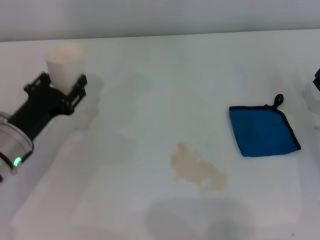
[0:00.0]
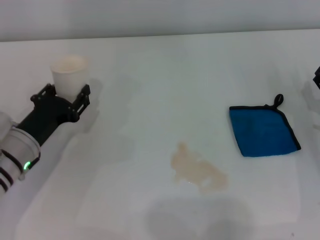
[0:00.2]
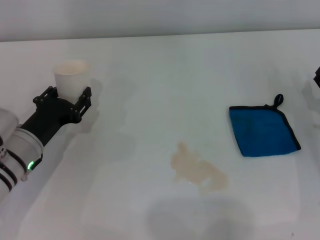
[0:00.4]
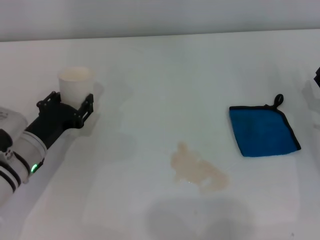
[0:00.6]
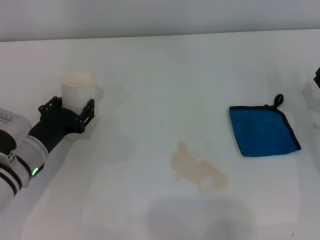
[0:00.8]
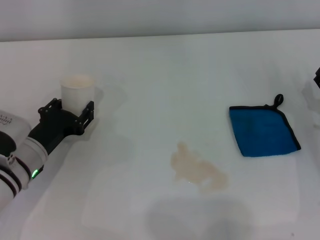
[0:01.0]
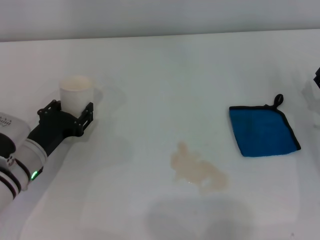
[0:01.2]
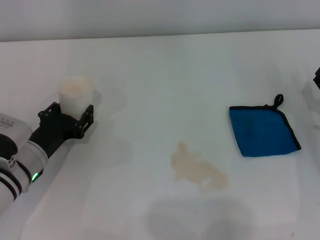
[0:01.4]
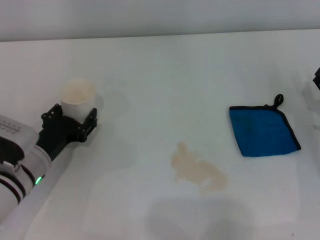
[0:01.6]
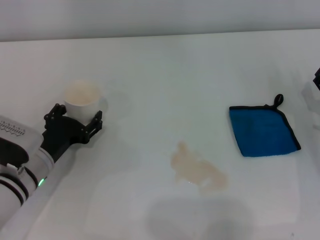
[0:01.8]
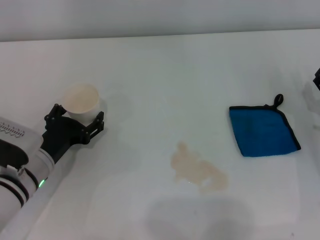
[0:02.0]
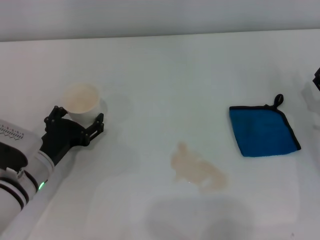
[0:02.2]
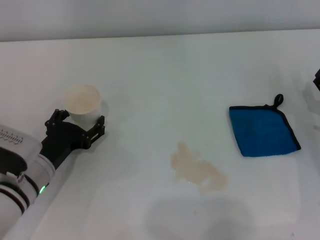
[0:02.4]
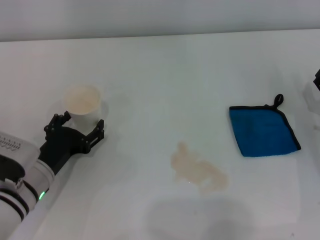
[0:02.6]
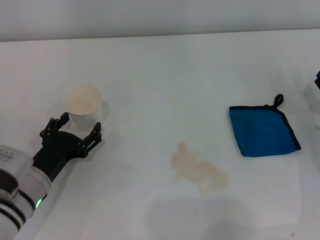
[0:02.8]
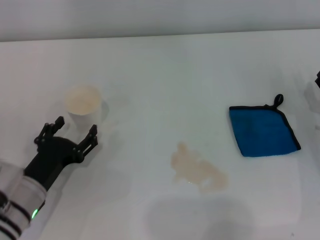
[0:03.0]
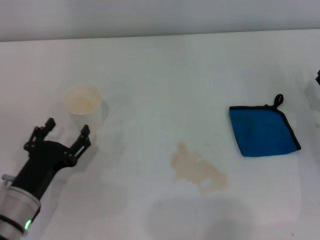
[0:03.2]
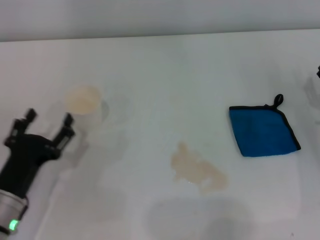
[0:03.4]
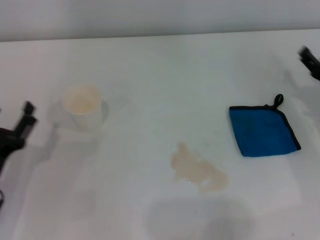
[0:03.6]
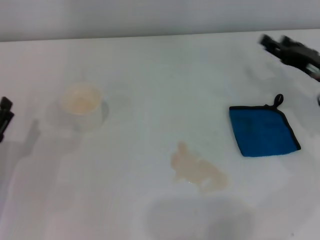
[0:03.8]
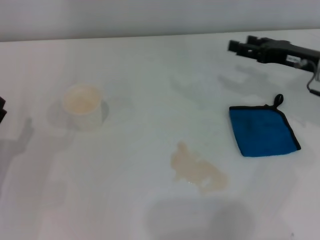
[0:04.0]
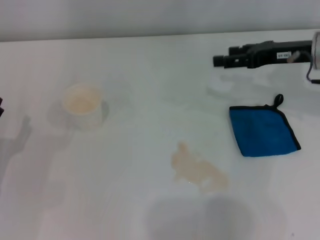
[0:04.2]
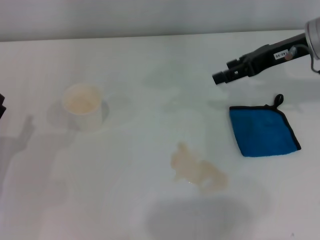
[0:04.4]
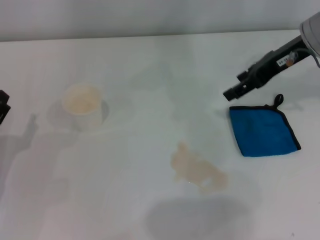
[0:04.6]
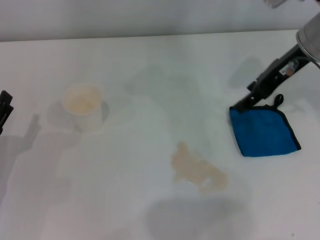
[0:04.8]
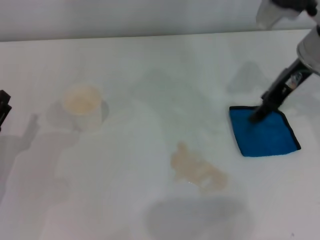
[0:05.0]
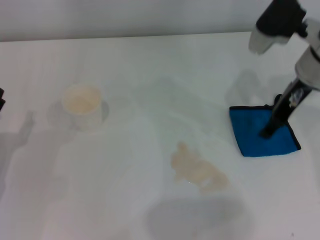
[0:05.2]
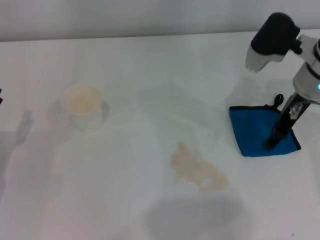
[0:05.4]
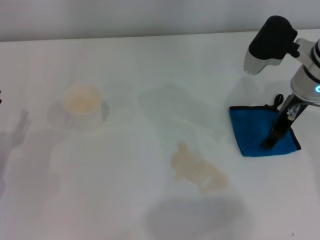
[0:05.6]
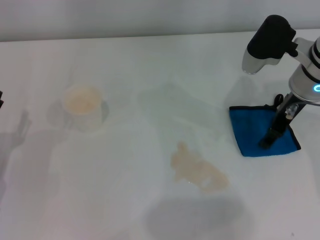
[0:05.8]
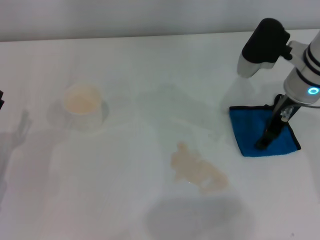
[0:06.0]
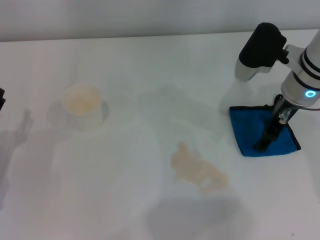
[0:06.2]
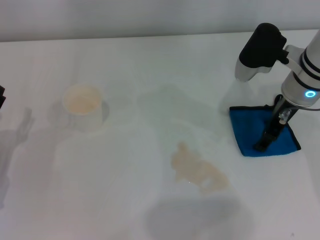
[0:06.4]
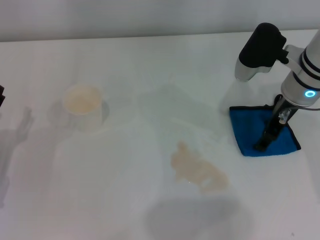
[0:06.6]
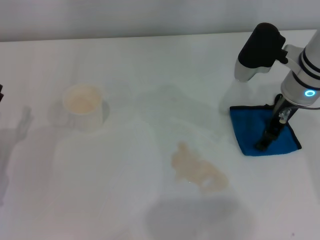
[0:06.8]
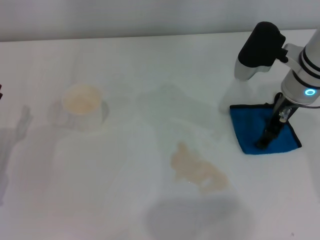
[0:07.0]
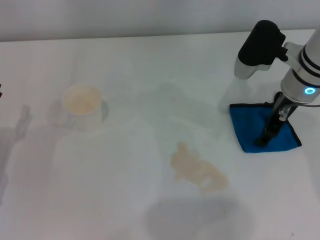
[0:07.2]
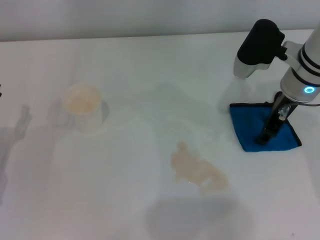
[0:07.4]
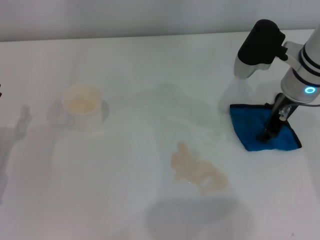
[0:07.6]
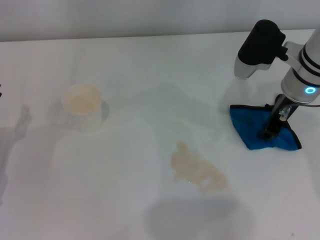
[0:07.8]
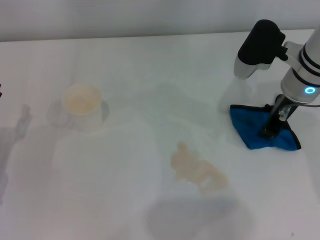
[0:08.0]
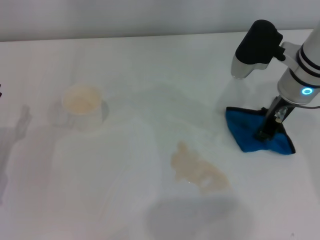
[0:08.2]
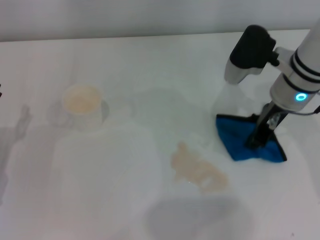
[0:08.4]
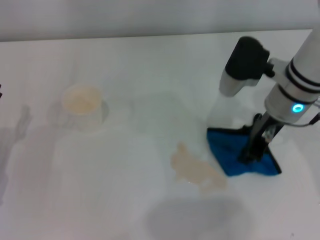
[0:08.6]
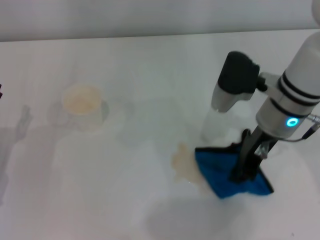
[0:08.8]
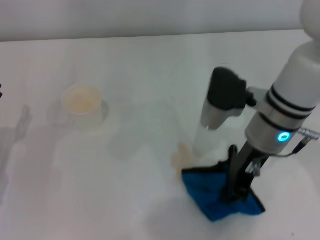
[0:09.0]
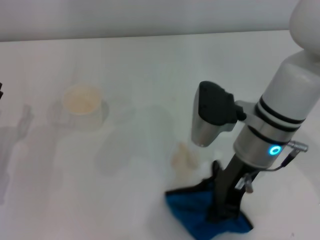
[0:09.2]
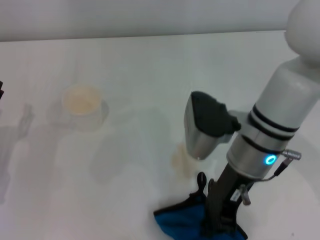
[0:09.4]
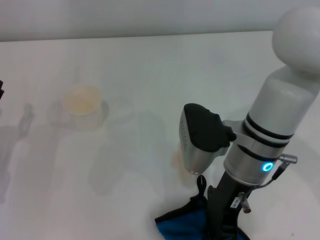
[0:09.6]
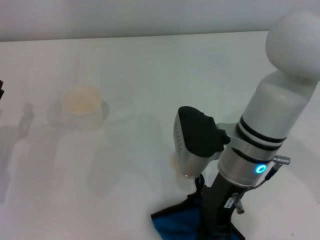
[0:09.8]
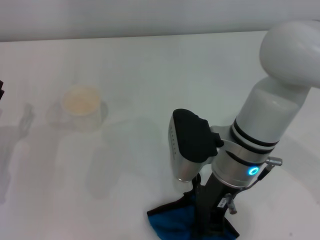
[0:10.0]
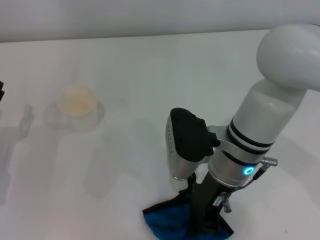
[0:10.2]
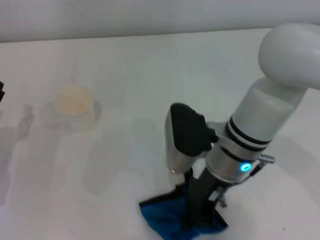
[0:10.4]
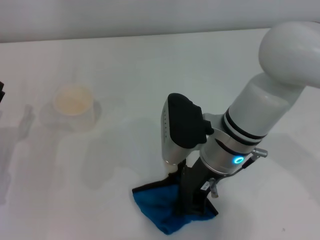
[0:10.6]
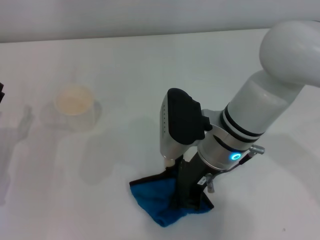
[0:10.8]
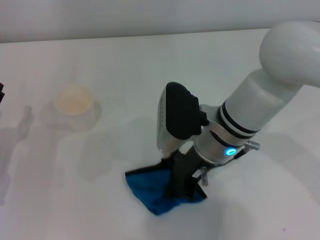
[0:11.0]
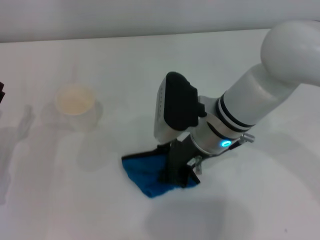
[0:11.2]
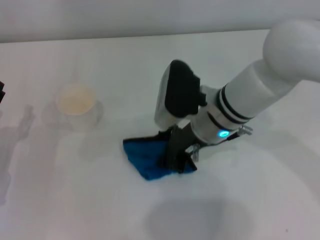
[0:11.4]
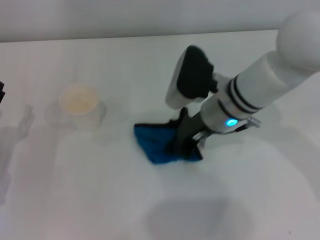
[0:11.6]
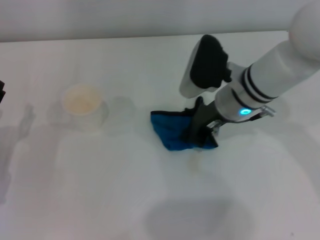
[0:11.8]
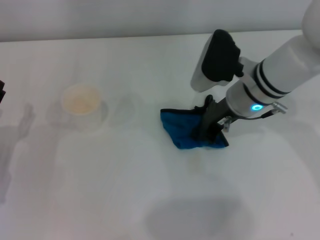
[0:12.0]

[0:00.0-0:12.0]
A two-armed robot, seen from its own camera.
Step, 0.0 to 2.0 s: Stand the paper cup upright with the left gripper.
Step, 2.2 to 8.0 s: Grasp the rag with the right gripper.
0.0 to 1.6 s: The grippers make only small movements.
1.6 to 3.0 s: The left gripper heads backward, covering approximately 5 cm, and opens up.
3.0 to 4.4 s: The right gripper goes some 20 cm upward and forward, while the left gripper heads to the left, covering roughly 10 cm.
4.4 to 6.0 s: The right gripper ends up about 5 cm from where it was.
6.0 to 7.6 s: Both grippers stay put.
7.6 to 9.0 s: The right gripper travels to the left and backward by some 10 cm, and closes.
9.0 to 10.4 s: The right gripper moves to the left, approximately 5 cm.
10.4 to 12.0 s: The right gripper is displaced forward and to the right by approximately 10 cm.

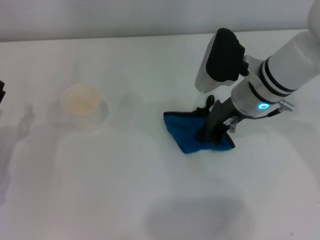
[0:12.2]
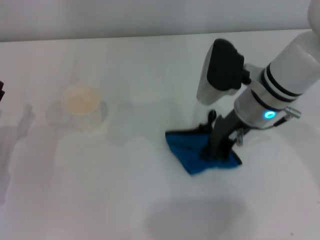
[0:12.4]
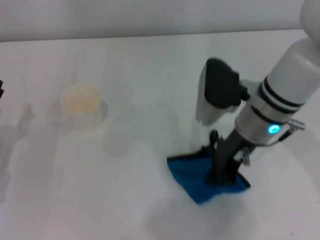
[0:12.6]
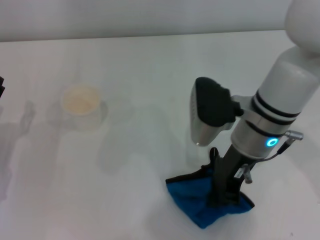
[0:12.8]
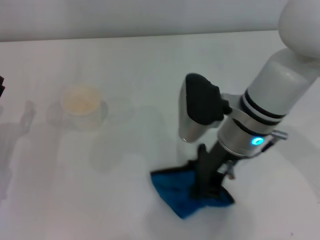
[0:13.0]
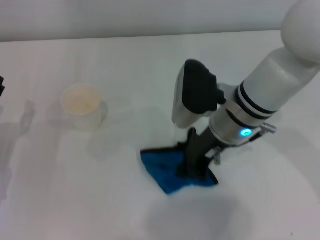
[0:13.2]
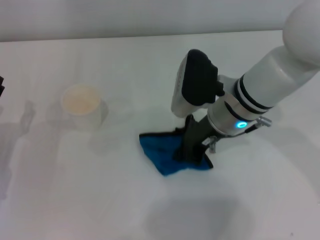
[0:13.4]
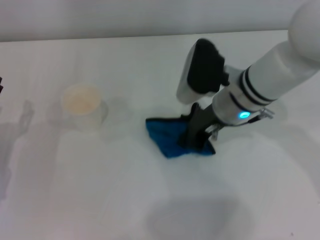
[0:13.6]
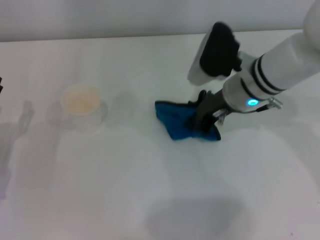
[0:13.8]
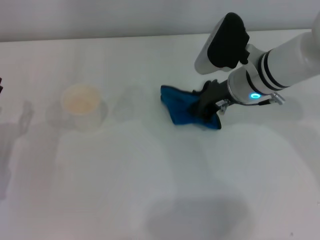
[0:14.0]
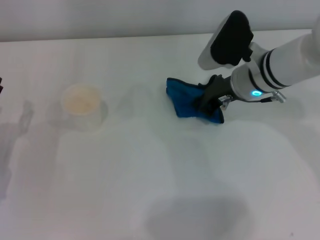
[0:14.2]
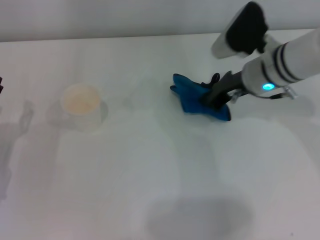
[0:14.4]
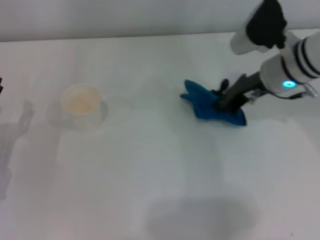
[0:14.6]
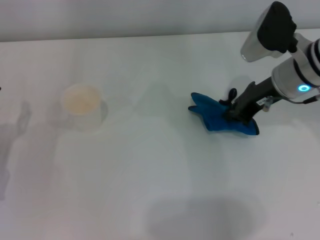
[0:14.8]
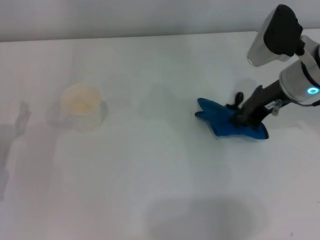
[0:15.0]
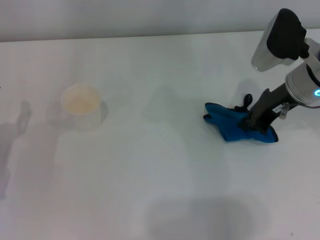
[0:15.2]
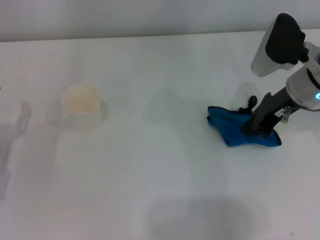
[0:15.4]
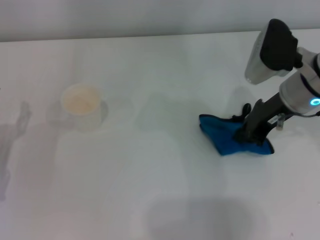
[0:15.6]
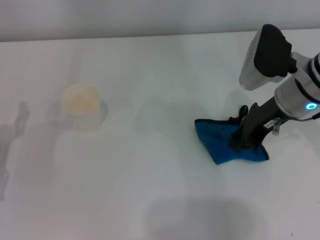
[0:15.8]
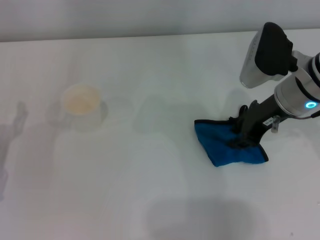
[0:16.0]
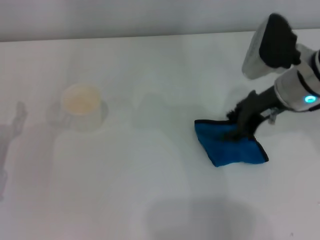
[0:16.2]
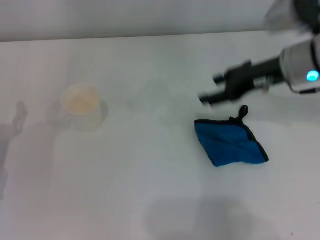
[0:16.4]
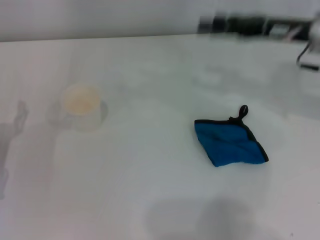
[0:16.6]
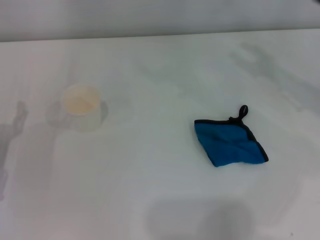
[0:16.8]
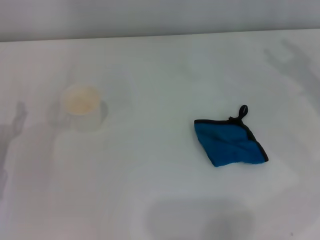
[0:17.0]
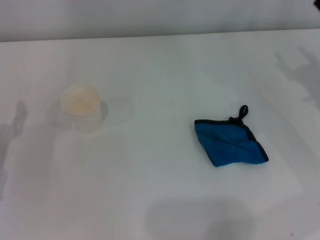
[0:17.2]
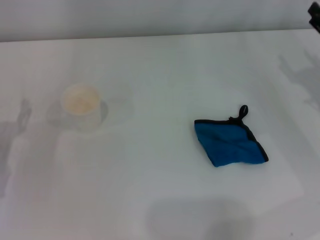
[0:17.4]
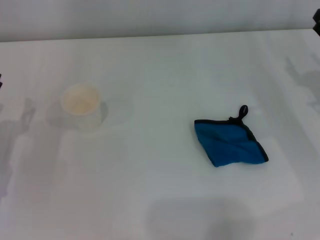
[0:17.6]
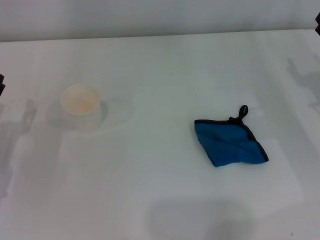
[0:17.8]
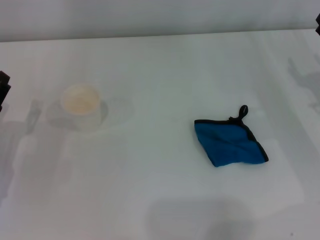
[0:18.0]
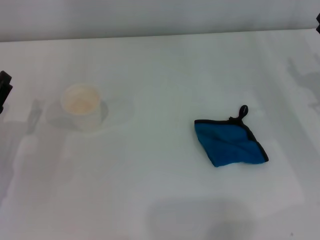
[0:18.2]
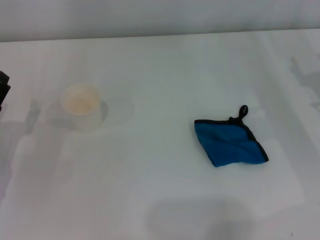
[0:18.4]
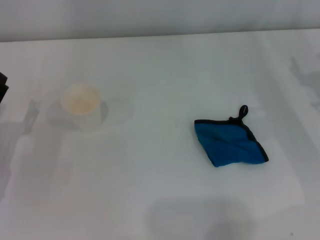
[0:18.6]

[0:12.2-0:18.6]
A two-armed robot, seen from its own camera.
Step, 12.2 to 15.0 s: Wipe the stains off the table with the right gripper.
Step, 15.2 to 15.8 s: Place the rag on the table with the right gripper.
13.8 to 15.4 s: The right gripper travels to the right by about 10 cm.
15.4 to 17.0 s: The right gripper shifts some 10 cm to the right, and opens up.

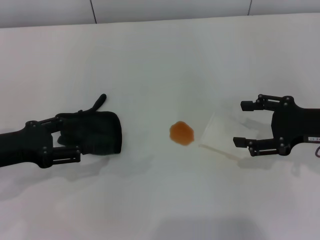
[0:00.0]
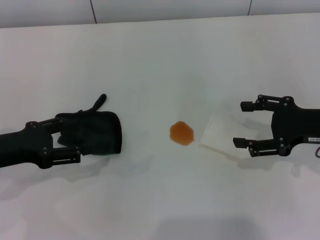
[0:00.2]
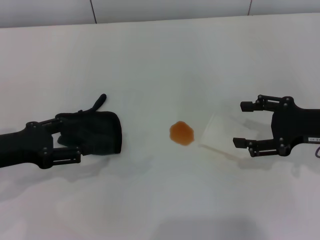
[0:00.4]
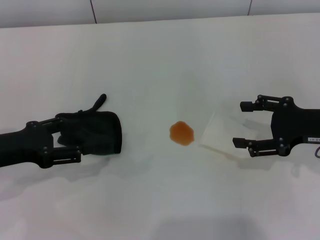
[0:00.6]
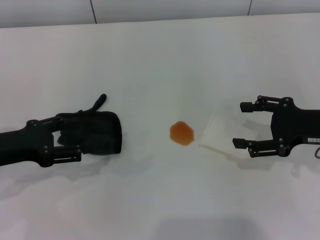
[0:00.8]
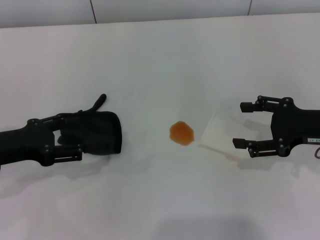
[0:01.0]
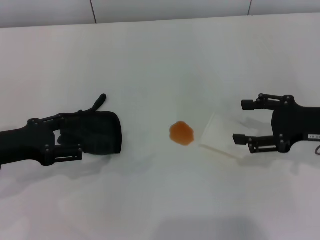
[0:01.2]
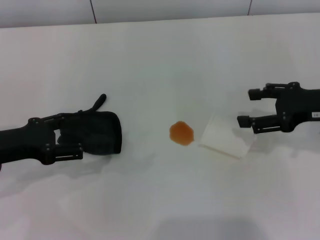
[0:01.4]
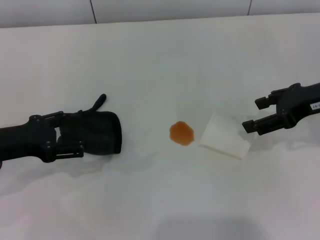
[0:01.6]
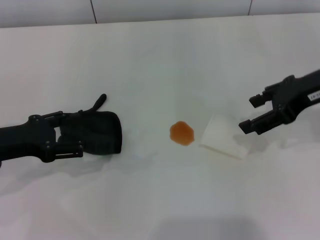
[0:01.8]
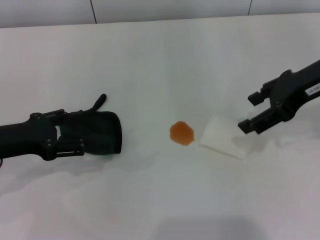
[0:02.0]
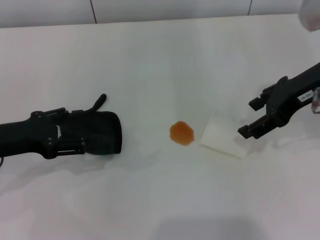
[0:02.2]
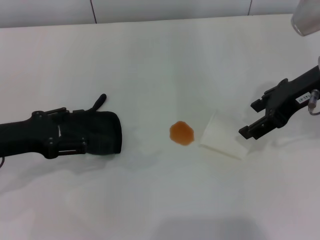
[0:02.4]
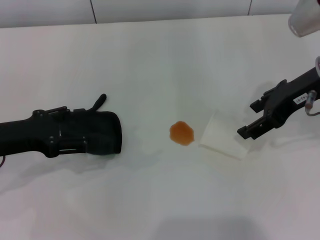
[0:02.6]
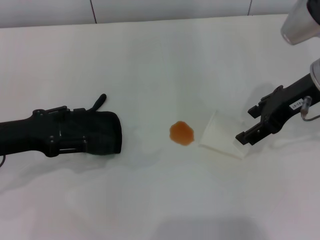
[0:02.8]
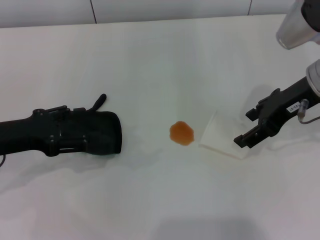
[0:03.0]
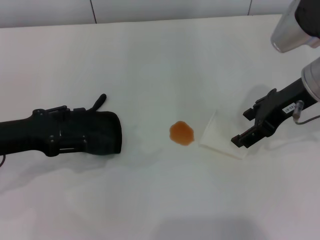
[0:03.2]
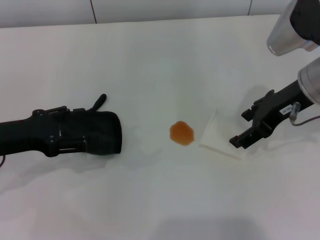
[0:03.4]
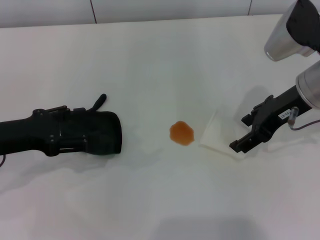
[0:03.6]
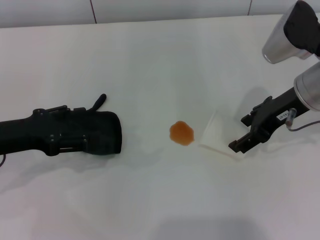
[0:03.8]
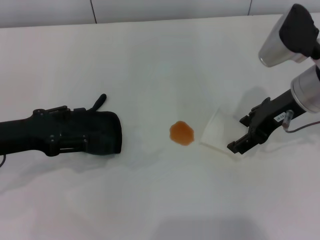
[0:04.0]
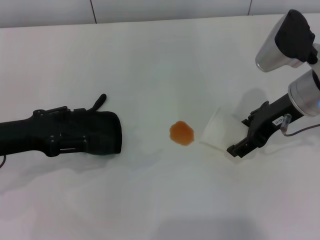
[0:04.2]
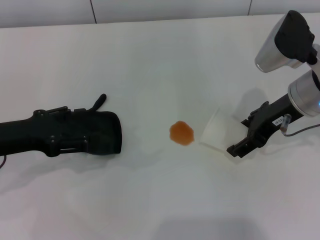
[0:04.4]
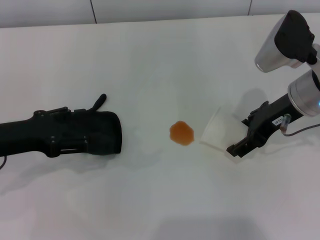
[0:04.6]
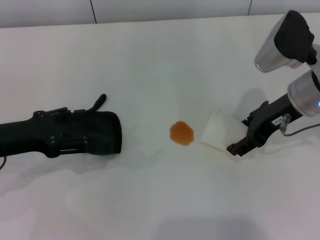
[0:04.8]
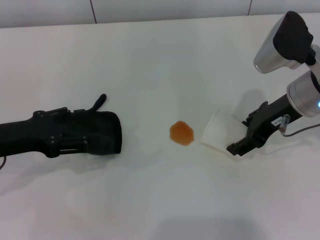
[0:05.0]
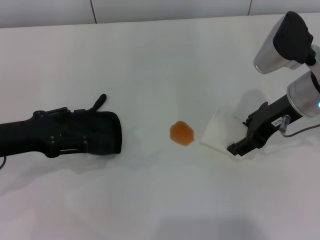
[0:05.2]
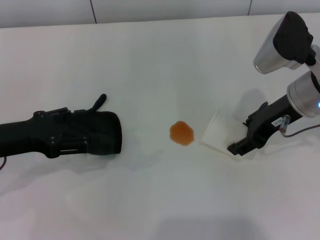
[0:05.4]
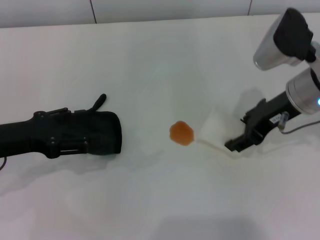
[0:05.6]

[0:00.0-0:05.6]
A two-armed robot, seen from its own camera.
Step, 0.0 to 5.2 s: Grasp the paper cup with the right gripper.
0.0 to 1.4 s: There are only small adjustments of the grippers.
1.4 to 2.8 s: The right gripper moves to the left, some 5 cm.
2.8 to 4.2 s: The grippers make only small movements.
4.2 to 5.6 s: The right gripper closes up.
